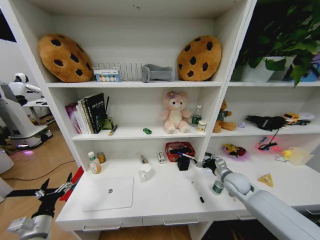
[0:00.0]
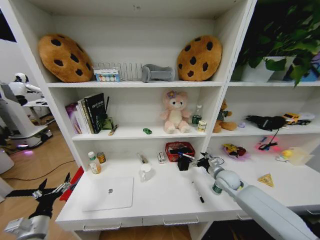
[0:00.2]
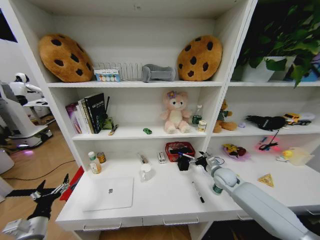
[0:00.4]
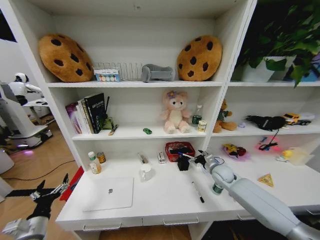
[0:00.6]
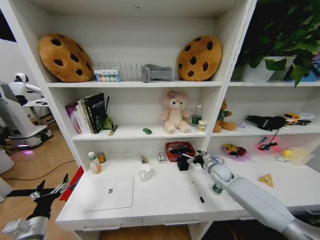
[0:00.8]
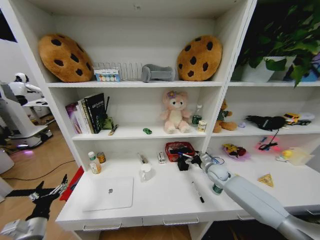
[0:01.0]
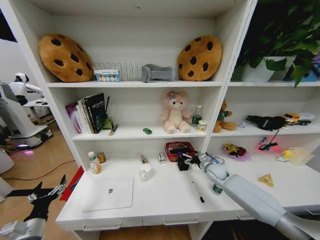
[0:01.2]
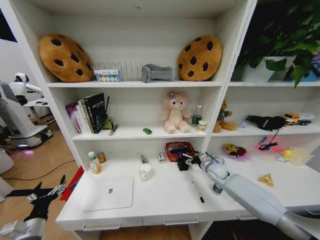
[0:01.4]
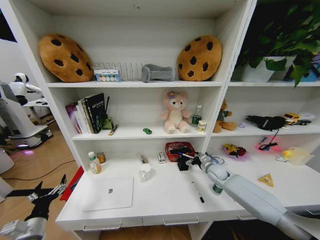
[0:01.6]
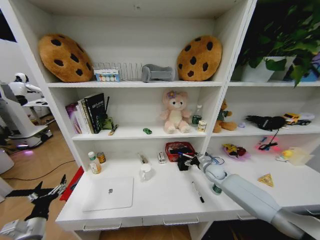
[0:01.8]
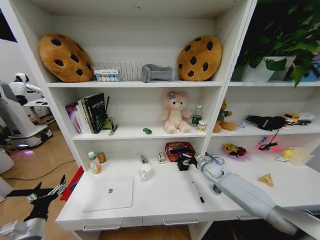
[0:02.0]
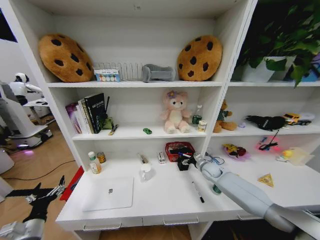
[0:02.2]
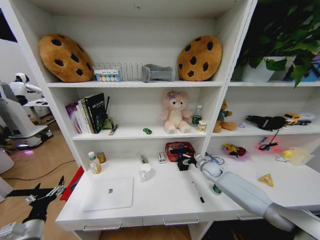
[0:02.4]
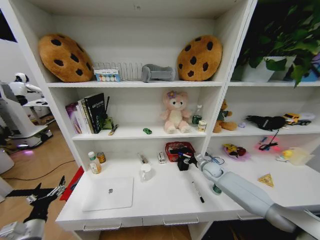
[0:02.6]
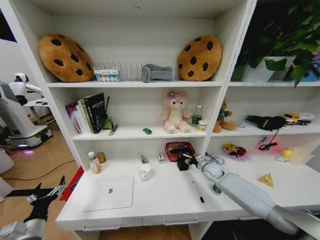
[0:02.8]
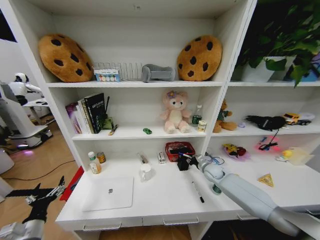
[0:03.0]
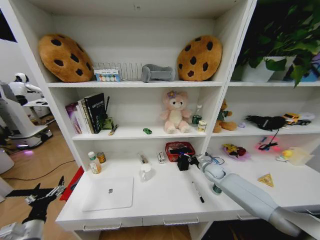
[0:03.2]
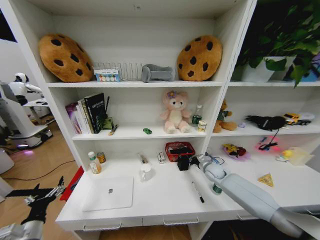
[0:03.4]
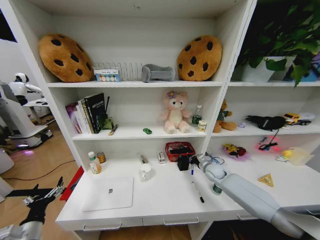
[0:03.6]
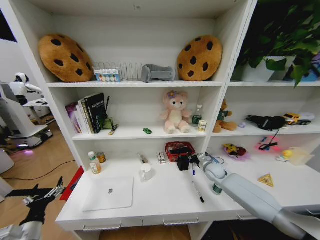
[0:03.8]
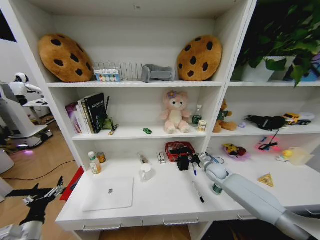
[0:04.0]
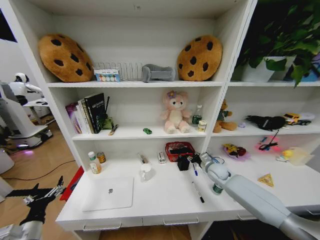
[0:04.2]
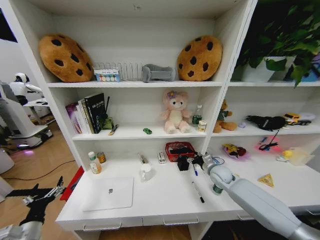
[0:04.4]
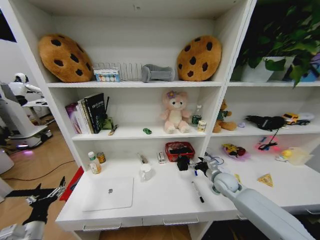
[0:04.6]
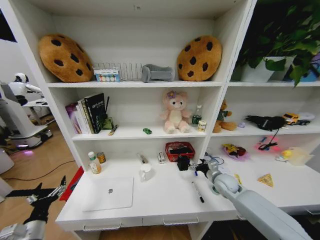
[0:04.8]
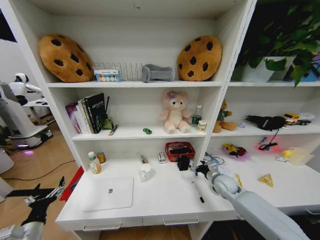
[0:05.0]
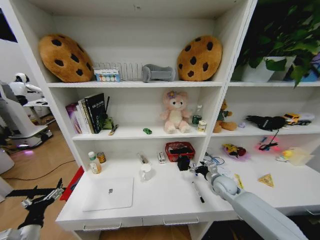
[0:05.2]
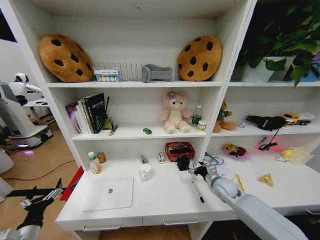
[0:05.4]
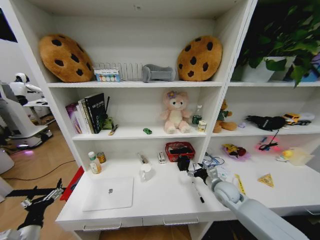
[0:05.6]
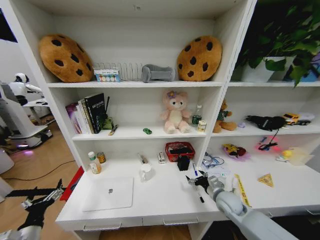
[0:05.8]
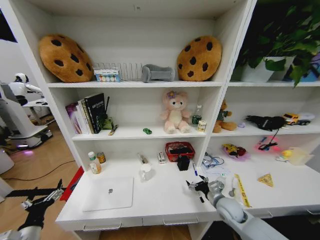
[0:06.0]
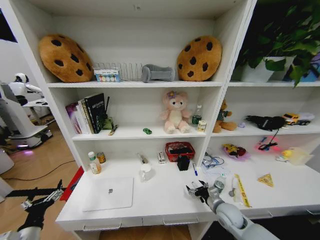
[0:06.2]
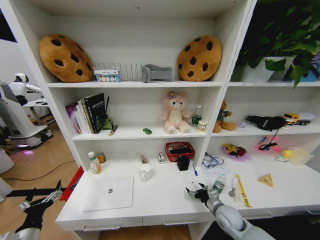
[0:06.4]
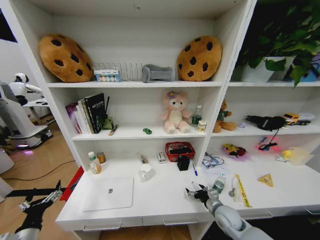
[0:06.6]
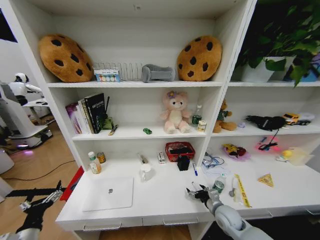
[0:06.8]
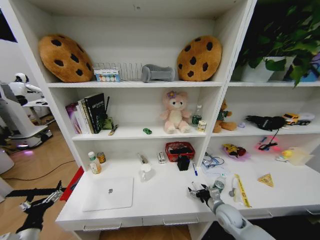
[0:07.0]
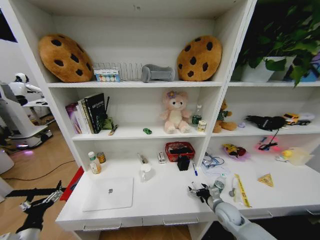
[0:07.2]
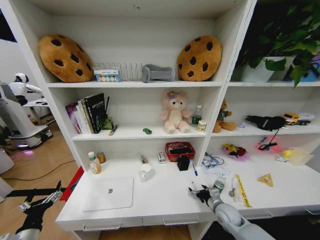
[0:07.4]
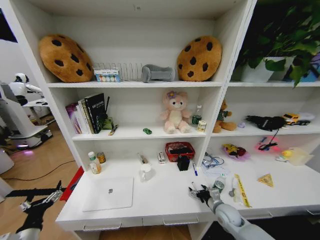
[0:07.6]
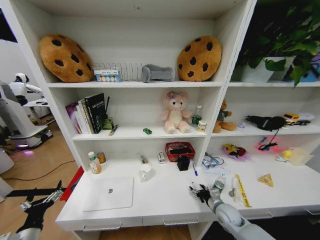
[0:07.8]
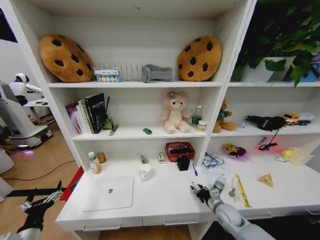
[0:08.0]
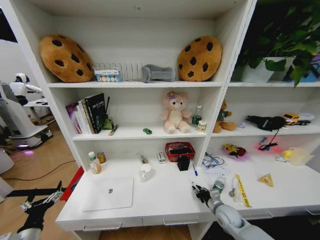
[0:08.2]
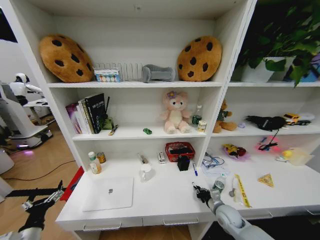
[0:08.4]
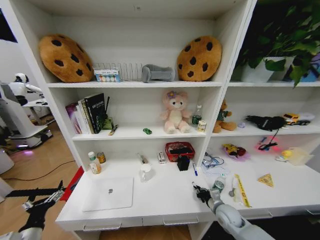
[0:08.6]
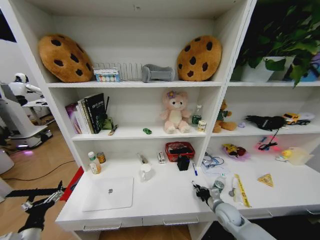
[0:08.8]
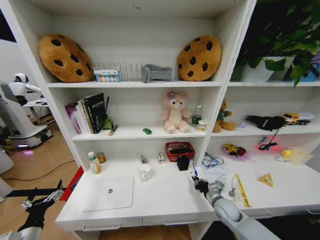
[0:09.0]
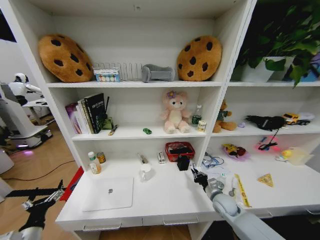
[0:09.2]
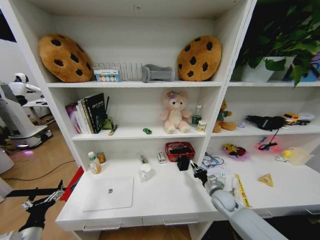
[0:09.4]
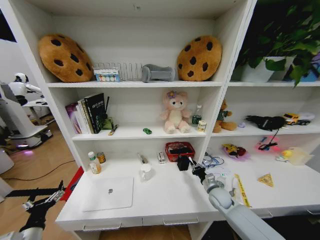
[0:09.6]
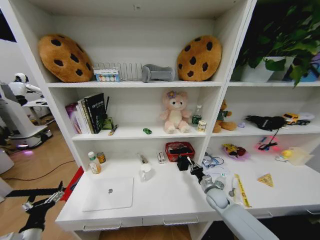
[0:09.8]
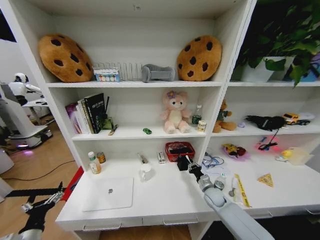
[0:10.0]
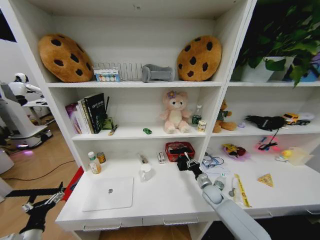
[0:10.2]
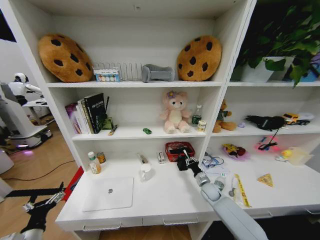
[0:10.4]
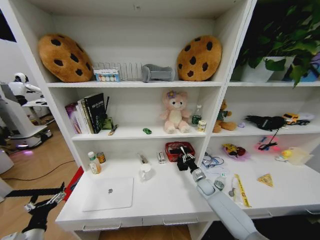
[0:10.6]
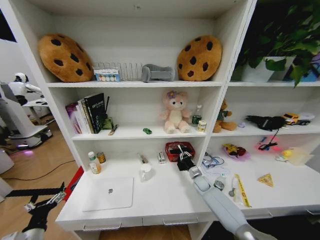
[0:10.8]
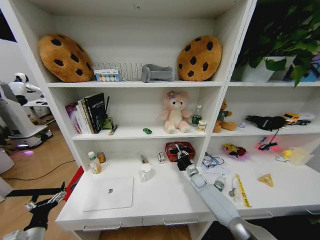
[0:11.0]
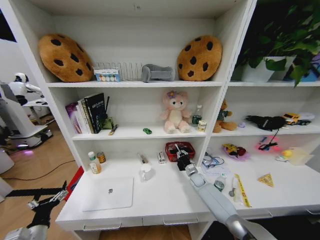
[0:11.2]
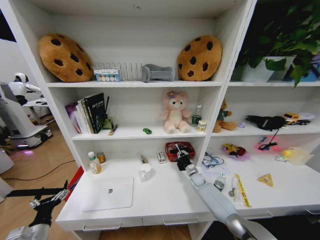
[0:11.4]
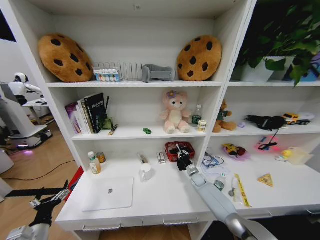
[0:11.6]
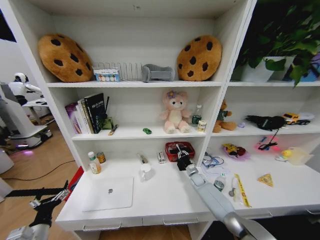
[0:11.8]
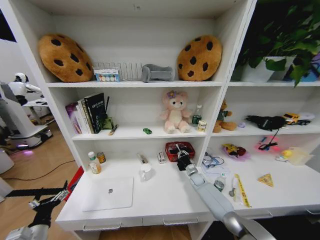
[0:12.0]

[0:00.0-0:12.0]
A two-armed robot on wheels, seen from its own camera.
Task of the whole recording: Organize the objects on the table.
0:00.0 to 0:01.6: The right gripper shifts about 10 cm forward.
0:01.6 to 0:03.0: The right gripper closes.
0:03.0 to 0:04.4: The right gripper moves roughly 5 cm, and closes, then opens again.
0:04.4 to 0:06.0: The right gripper heads backward and downward, covering roughly 15 cm.
0:06.0 to 0:07.6: The right gripper shifts by approximately 5 cm.
0:07.6 to 0:09.0: The right gripper closes its fingers.
0:09.0 to 0:10.4: The right gripper is displaced forward by approximately 10 cm.
0:10.4 to 0:12.0: The right gripper goes about 10 cm forward.

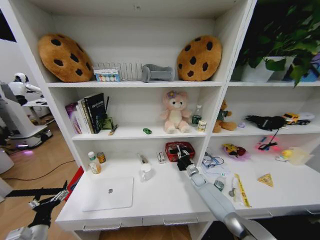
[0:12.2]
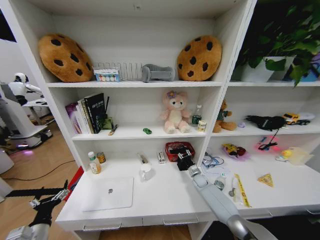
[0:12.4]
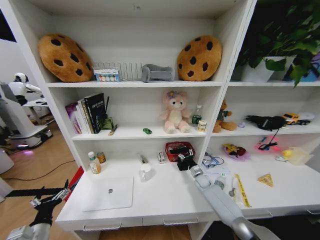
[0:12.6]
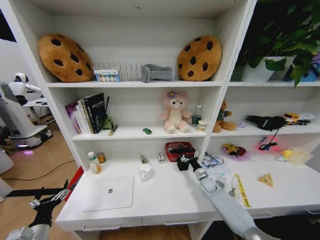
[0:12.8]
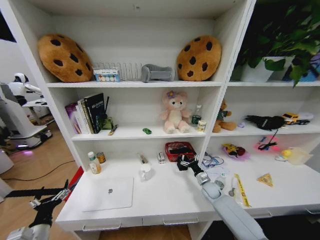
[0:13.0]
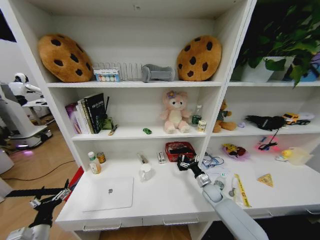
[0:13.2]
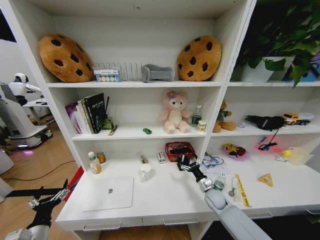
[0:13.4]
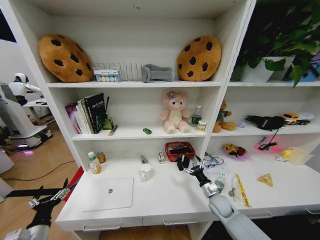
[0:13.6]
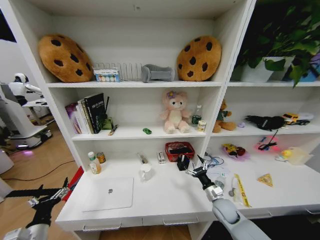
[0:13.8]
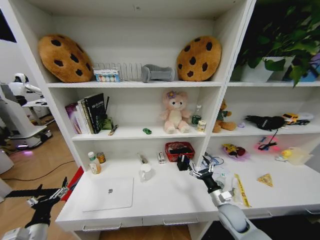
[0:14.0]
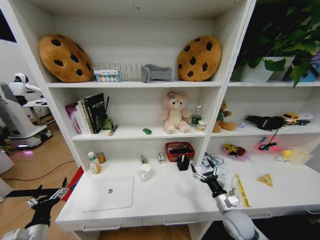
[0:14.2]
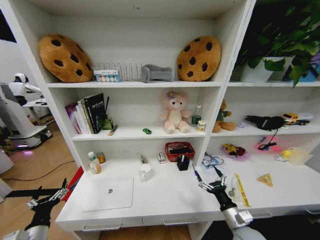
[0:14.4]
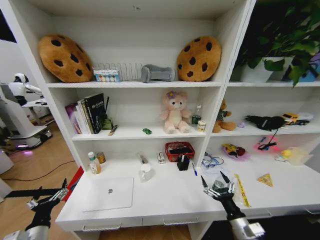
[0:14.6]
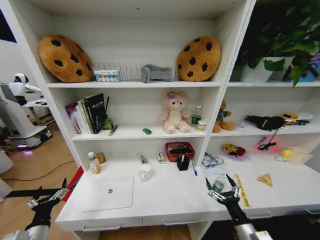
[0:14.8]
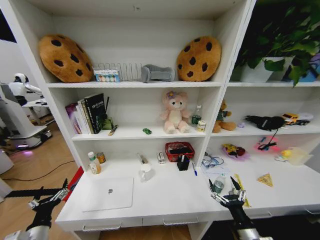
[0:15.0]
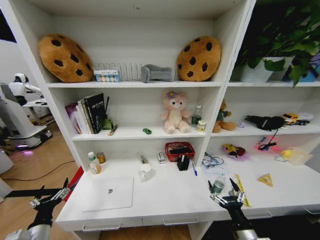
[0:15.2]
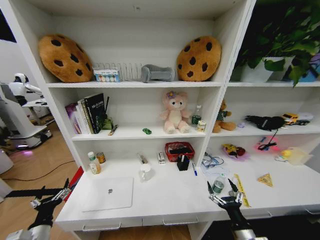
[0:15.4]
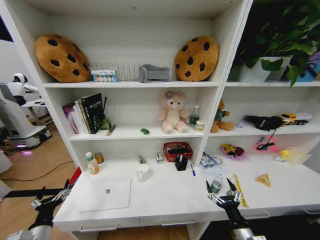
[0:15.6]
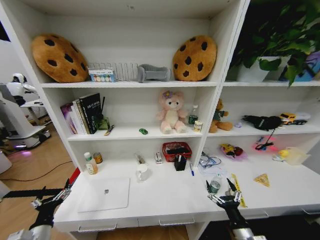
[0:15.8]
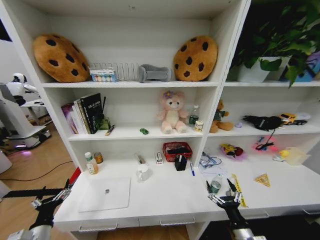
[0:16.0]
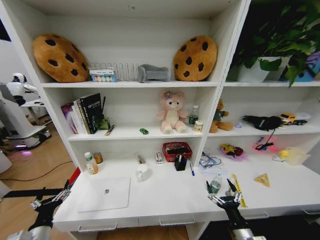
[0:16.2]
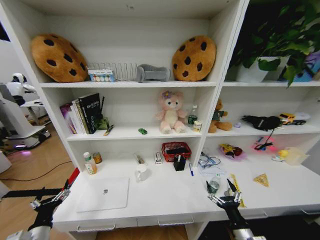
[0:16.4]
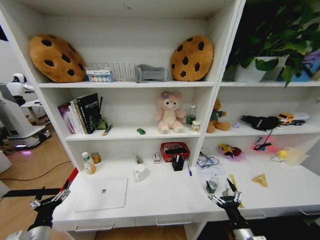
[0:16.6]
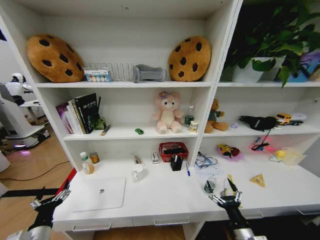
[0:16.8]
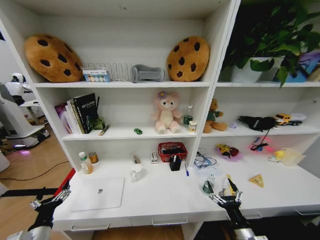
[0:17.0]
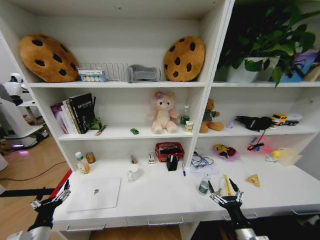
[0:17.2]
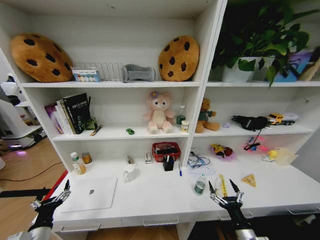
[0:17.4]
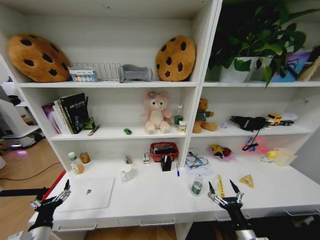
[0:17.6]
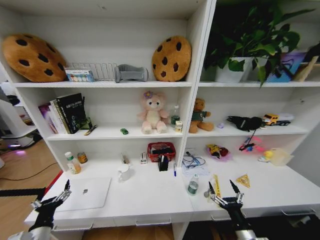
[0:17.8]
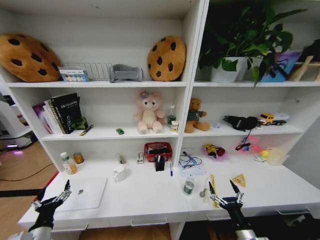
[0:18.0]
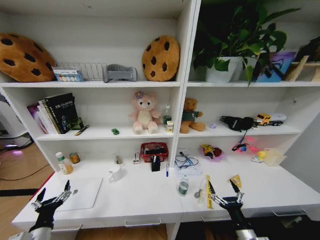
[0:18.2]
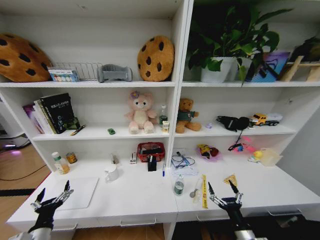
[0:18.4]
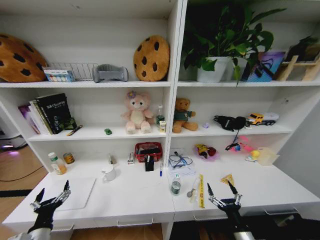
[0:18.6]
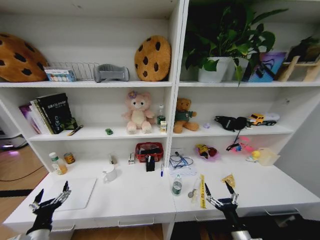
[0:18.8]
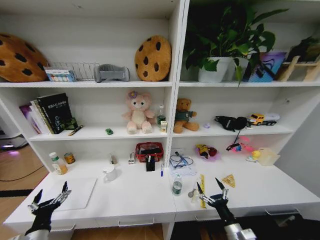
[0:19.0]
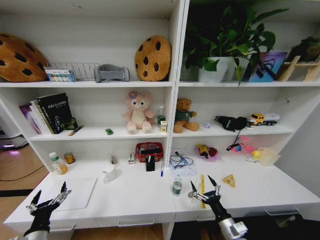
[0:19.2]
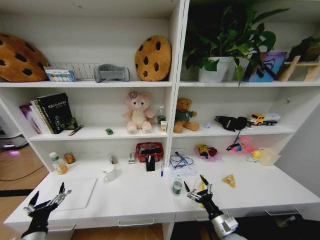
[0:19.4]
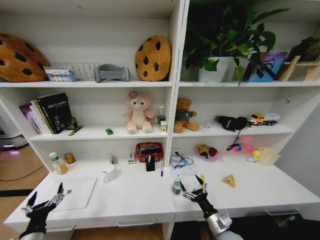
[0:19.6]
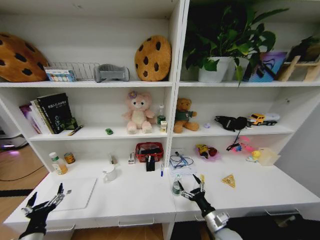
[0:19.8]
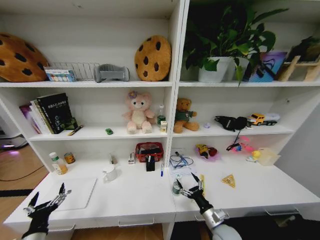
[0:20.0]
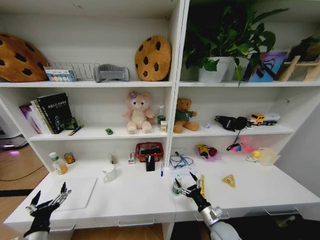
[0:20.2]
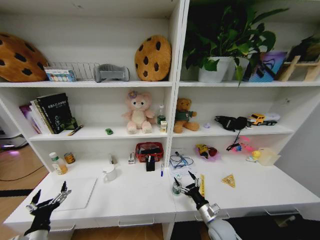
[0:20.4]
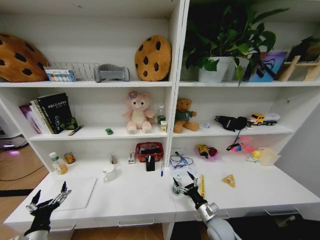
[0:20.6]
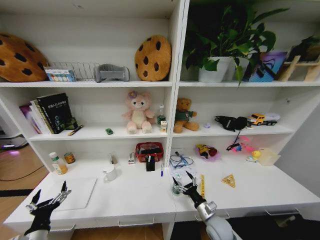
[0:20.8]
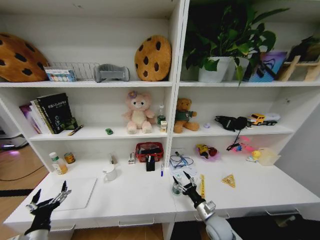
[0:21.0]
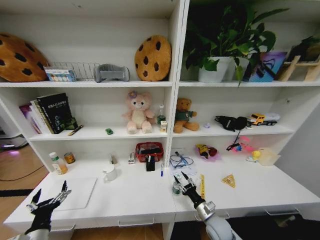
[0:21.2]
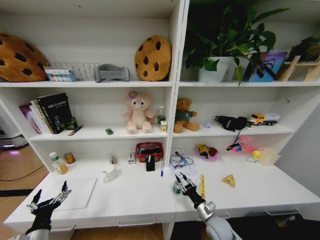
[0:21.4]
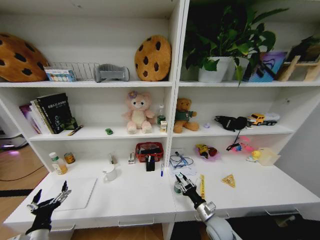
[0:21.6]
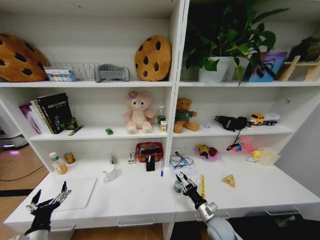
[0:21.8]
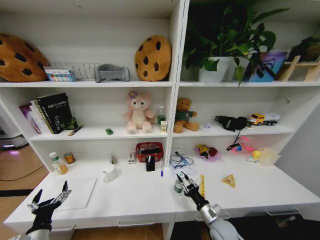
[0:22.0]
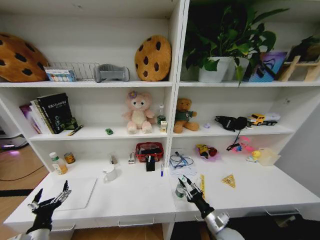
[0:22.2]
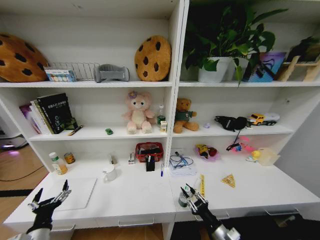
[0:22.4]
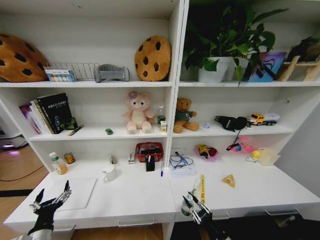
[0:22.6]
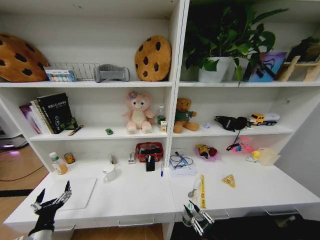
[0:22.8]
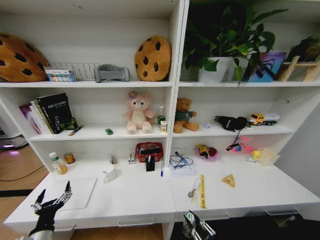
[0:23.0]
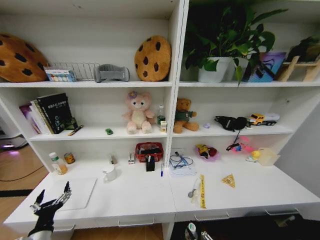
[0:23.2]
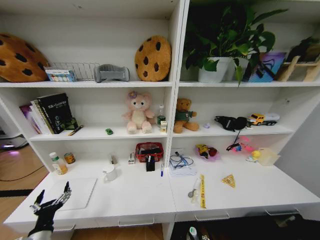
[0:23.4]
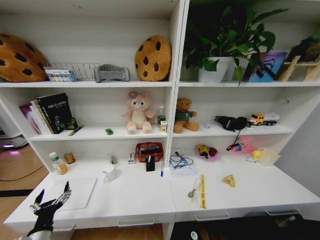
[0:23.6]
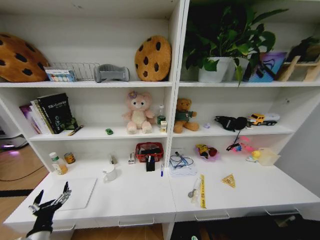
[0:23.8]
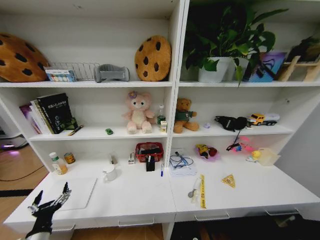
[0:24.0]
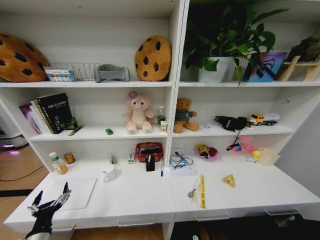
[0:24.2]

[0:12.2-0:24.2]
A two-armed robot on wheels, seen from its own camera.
Task of the whole recording: Organize the objects on the table.
0:12.2 to 0:13.8: The right gripper heads backward and upward, covering some 20 cm, and opens up.
0:13.8 to 0:15.2: The right gripper moves backward, some 20 cm.
0:18.2 to 0:19.8: The right gripper heads forward and to the left, covering some 10 cm.
0:19.8 to 0:21.2: The right gripper changes place by about 5 cm, and closes.
0:21.2 to 0:22.6: The right gripper heads backward, covering about 15 cm.
0:22.6 to 0:24.2: The right gripper travels downward and backward by approximately 25 cm.
